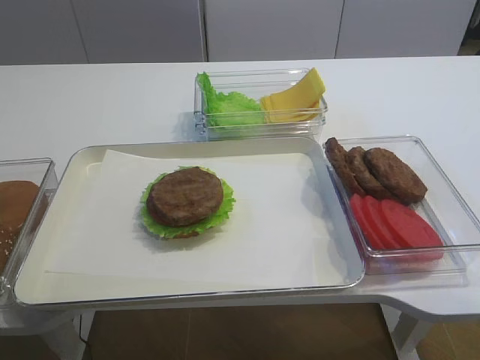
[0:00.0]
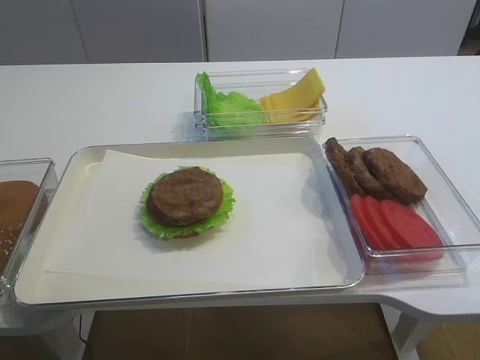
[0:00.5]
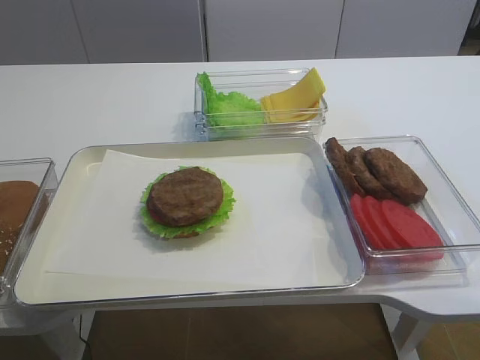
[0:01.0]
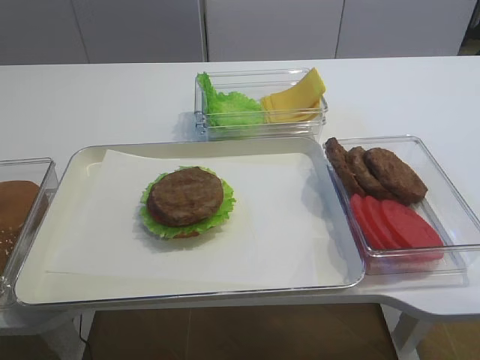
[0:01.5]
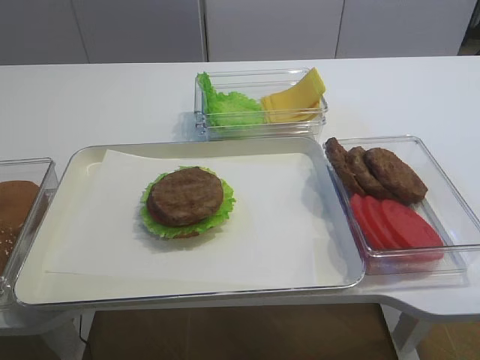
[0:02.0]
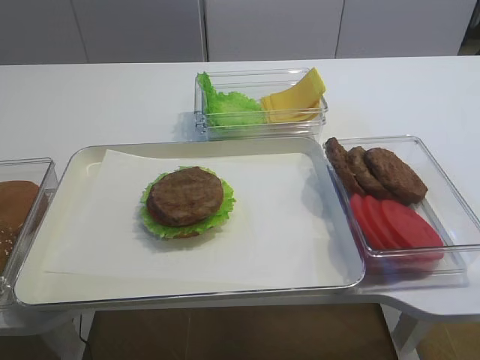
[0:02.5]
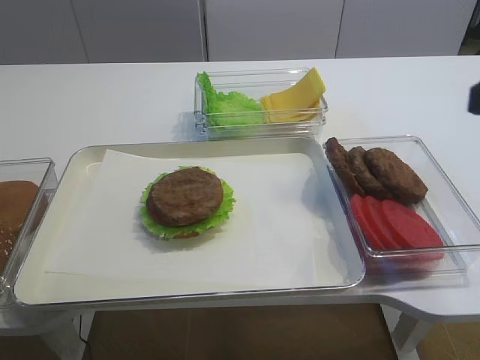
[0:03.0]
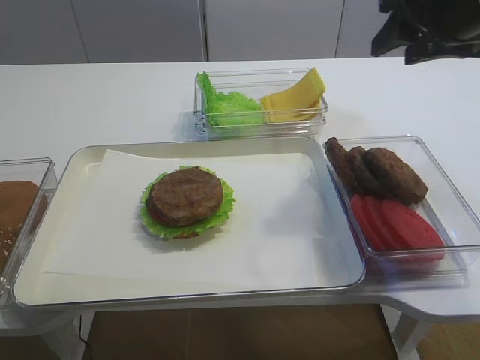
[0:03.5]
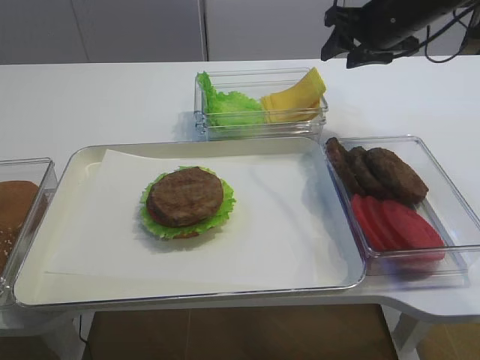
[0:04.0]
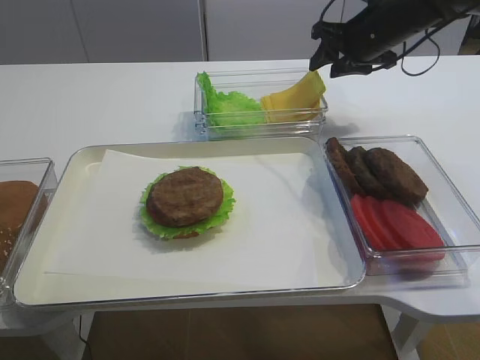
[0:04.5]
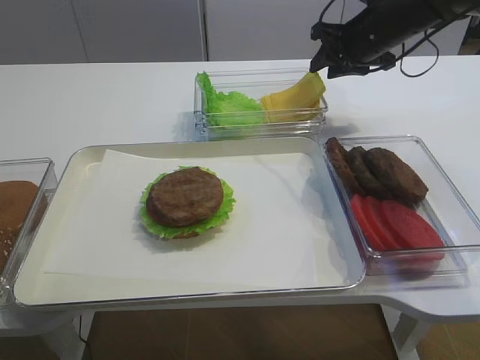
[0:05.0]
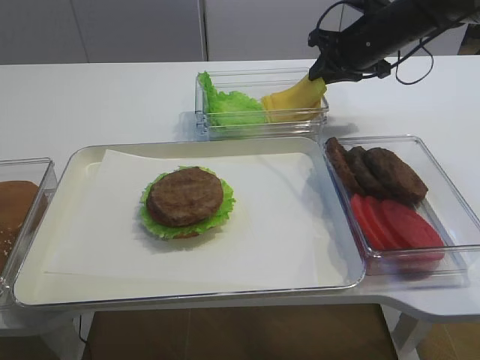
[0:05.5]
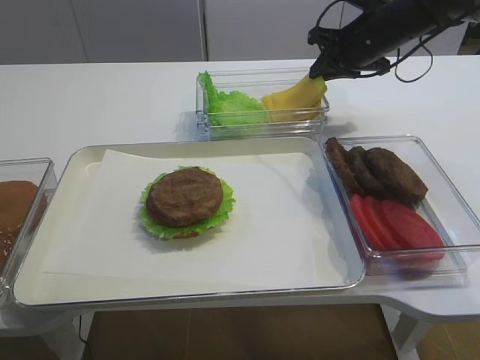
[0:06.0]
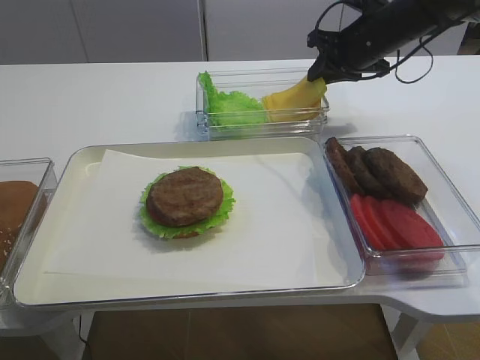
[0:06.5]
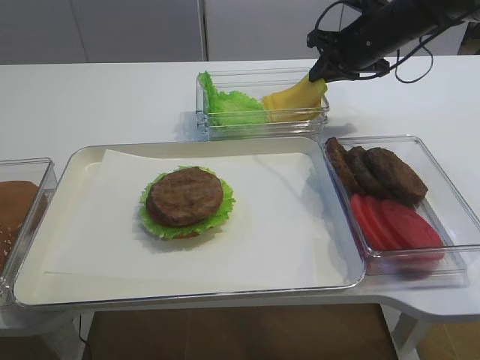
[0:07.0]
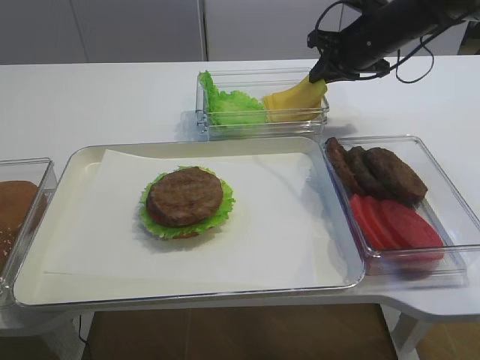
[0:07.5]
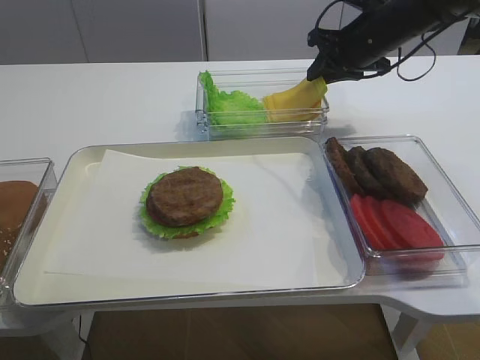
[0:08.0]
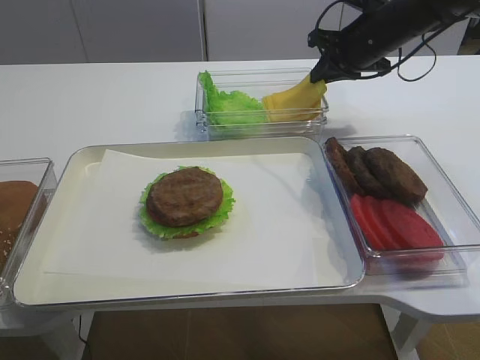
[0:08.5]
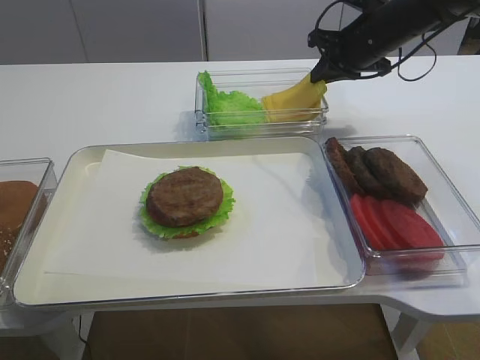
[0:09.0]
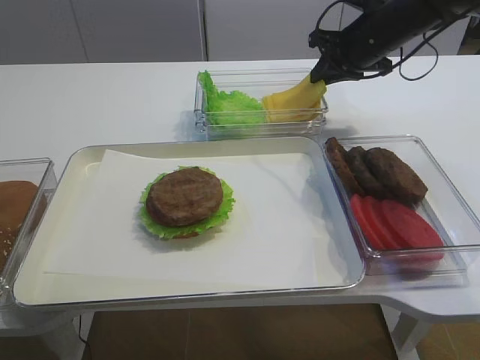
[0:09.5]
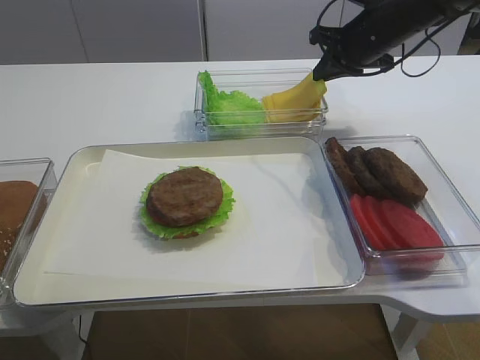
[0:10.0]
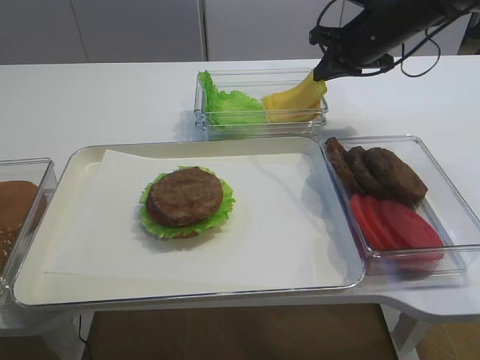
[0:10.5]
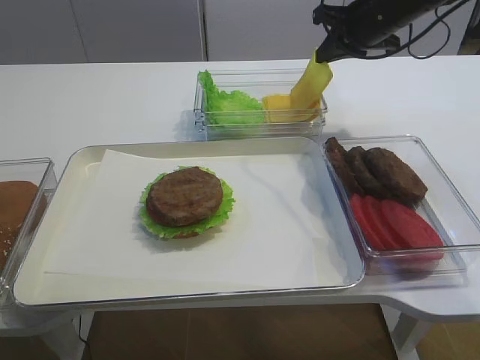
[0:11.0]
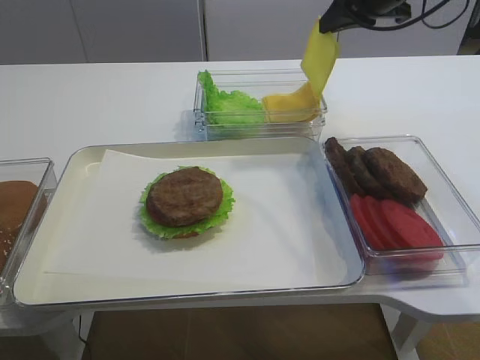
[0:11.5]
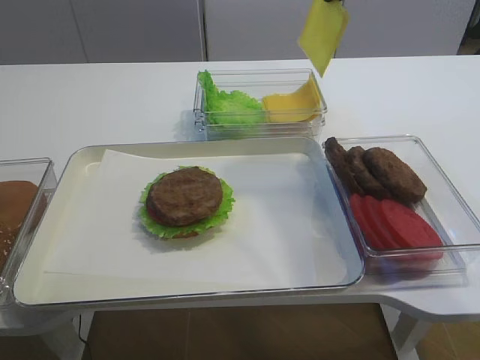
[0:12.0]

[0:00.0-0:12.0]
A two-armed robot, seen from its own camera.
0:02.0 to 0:04.0: The right gripper is displaced forward by roughly 50 cm.
0:04.0 to 0:06.0: The right gripper moves roughly 5 cm, and closes its fingers.
0:06.0 to 0:10.0: Both grippers stay about where they are.
0:10.0 to 0:12.0: The right gripper heads upward and backward, covering approximately 15 cm.

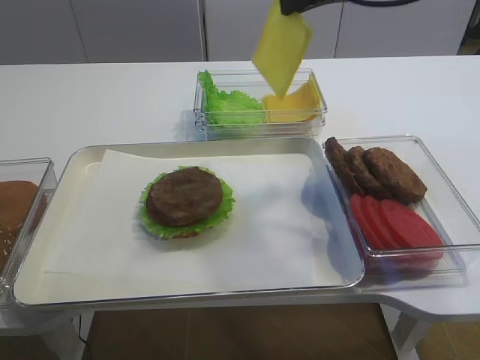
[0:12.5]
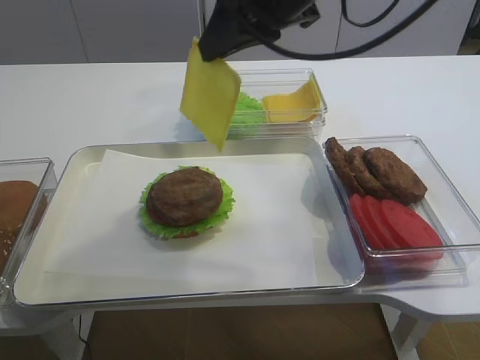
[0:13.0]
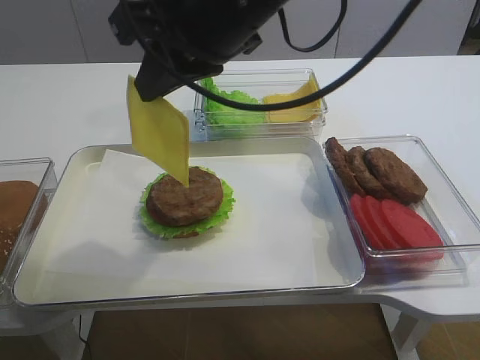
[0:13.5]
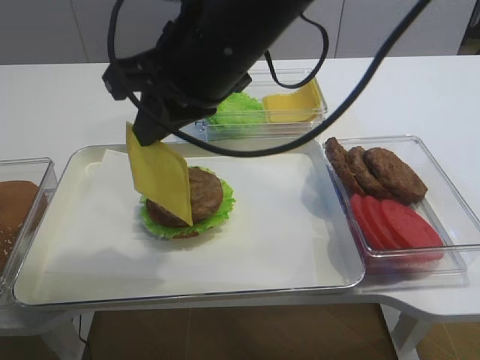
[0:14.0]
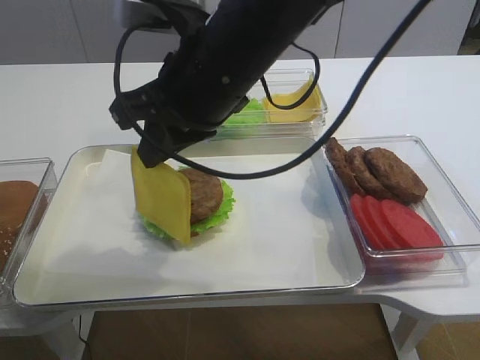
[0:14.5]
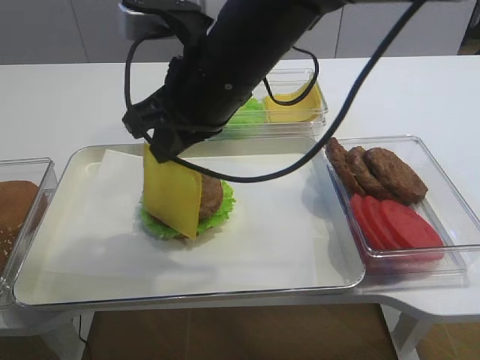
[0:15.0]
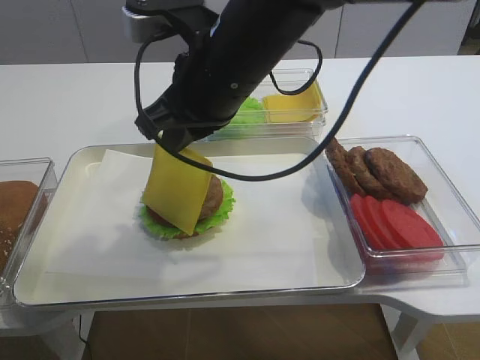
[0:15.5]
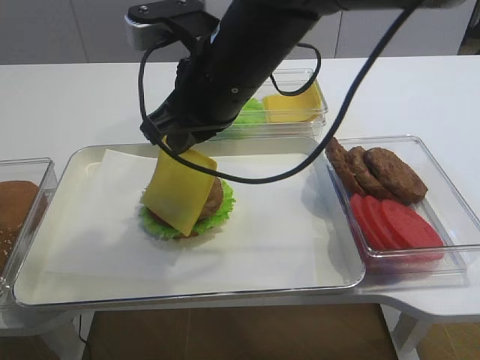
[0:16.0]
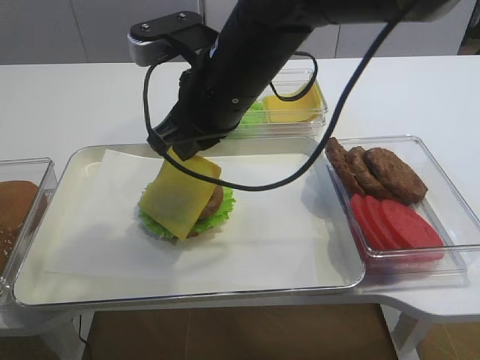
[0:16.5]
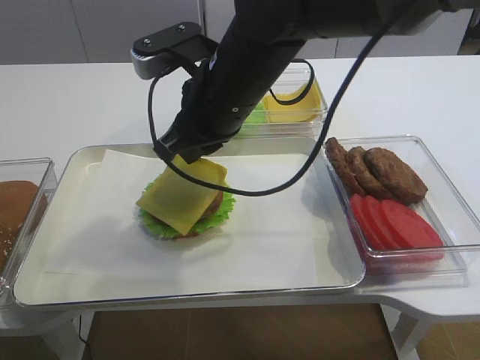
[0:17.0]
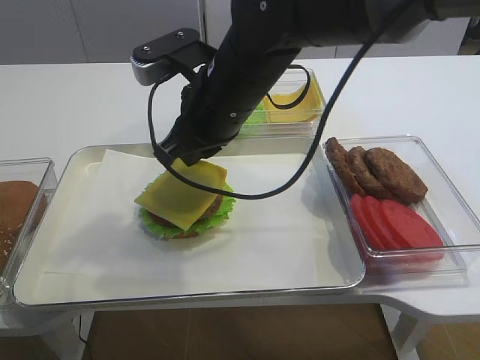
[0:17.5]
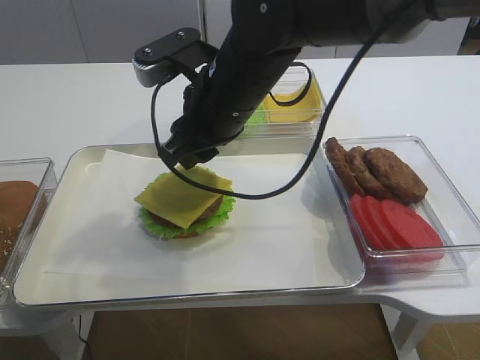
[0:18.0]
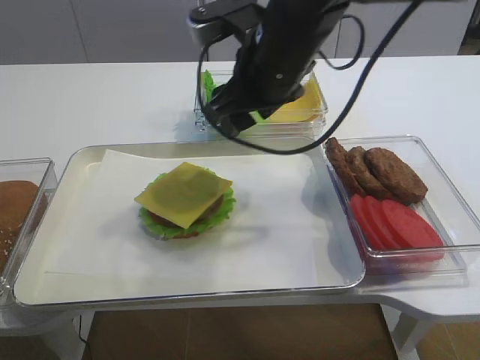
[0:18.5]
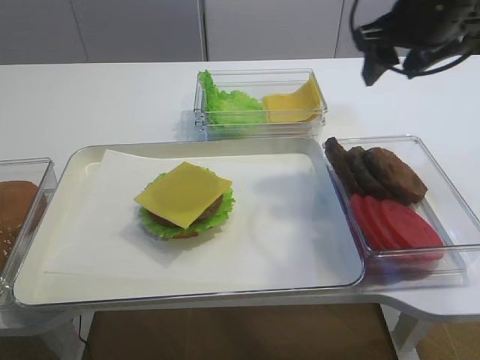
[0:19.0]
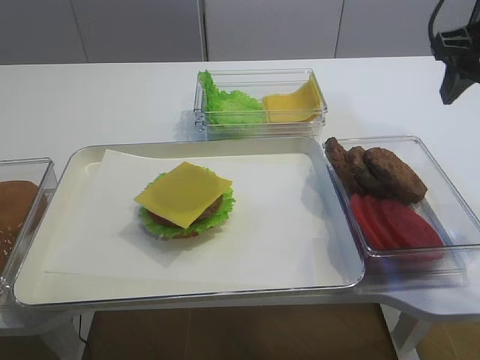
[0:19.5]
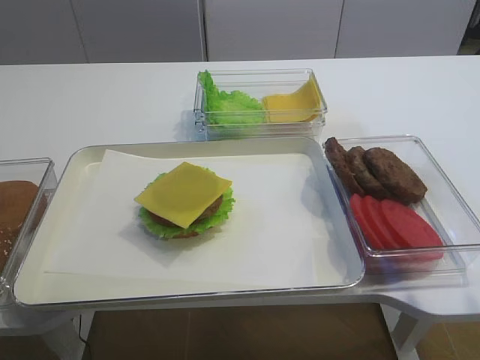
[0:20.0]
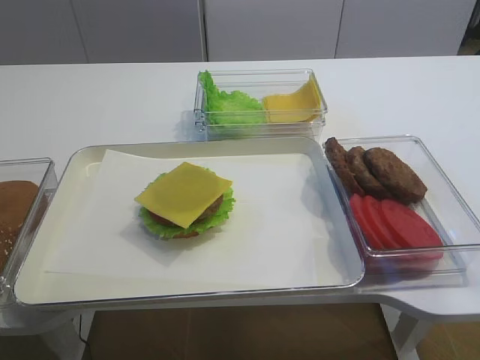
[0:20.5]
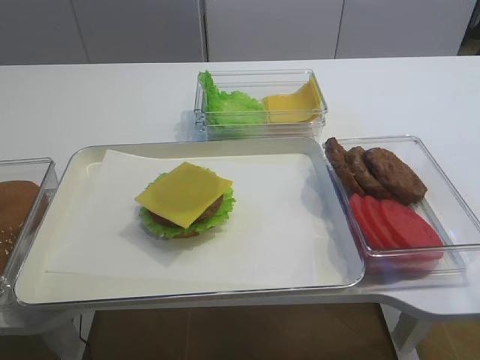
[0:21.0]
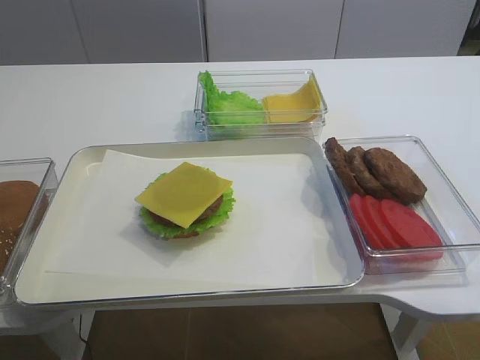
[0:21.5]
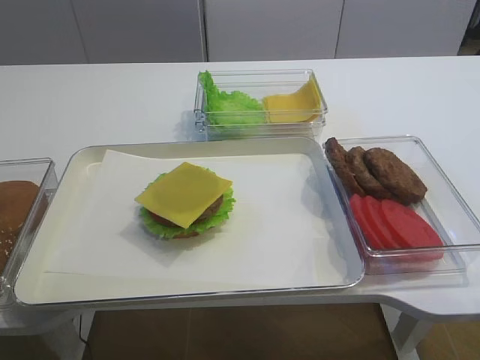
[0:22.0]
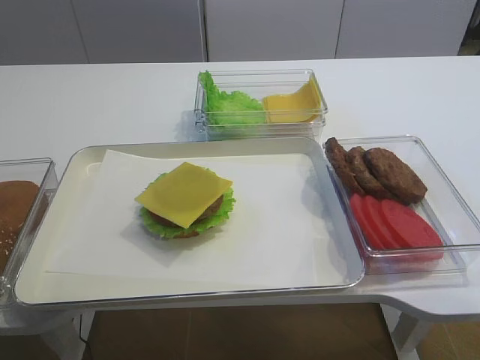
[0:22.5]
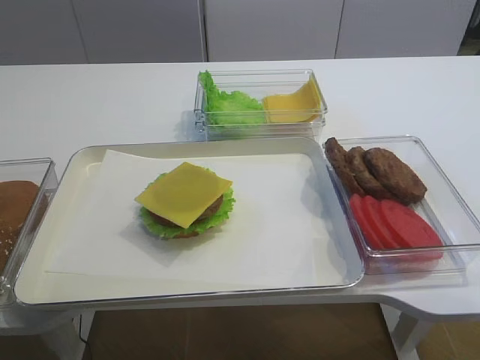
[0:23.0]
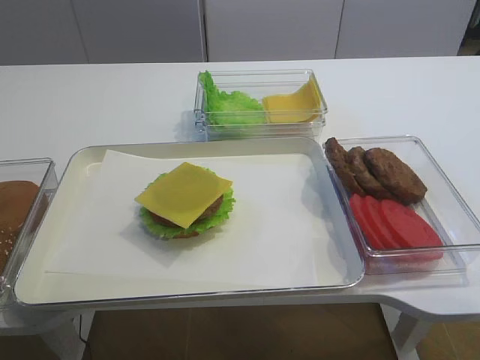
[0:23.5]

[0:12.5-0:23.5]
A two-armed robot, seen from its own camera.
Step, 0:12.5 to 0:17.5: Place the cheese slice on the cutlet with the right gripper.
0:12.5 to 0:14.5: The right gripper travels to the left, backward and downward by about 20 cm.
0:14.5 to 0:16.0: The grippers make only small movements.
0:16.0 to 0:18.0: The right gripper opens.
0:18.0 to 0:20.0: The right gripper is displaced to the right by some 25 cm, and opens its fingers.
0:20.0 to 0:21.5: The right gripper goes approximately 25 cm backward.

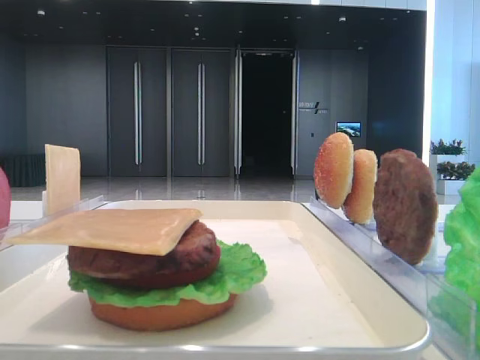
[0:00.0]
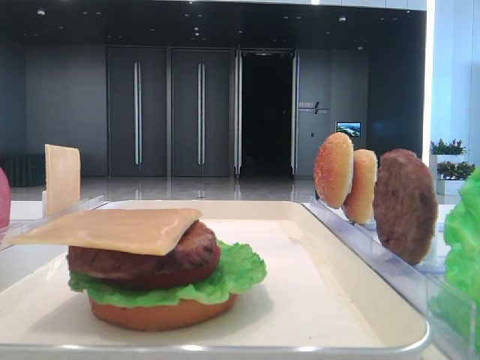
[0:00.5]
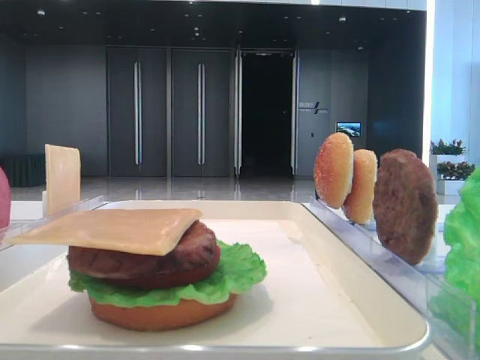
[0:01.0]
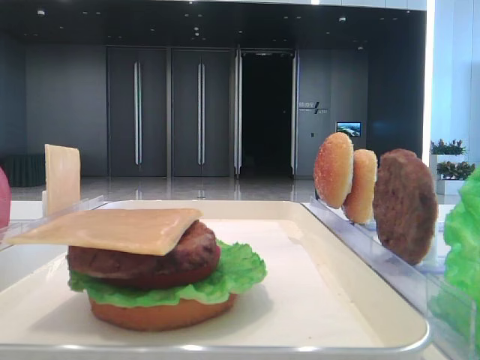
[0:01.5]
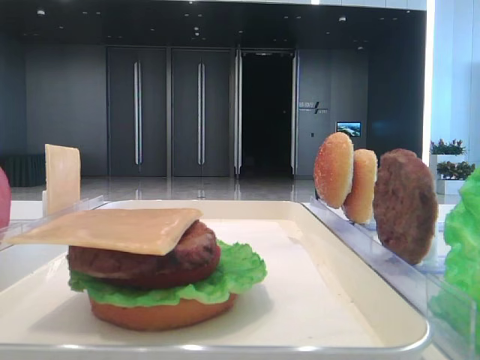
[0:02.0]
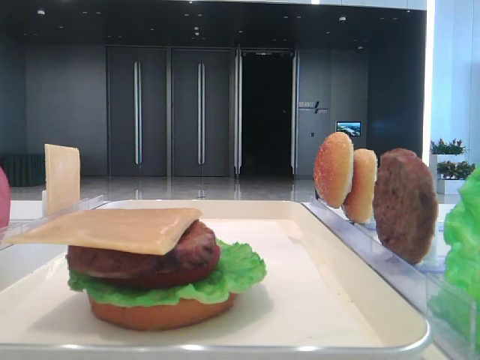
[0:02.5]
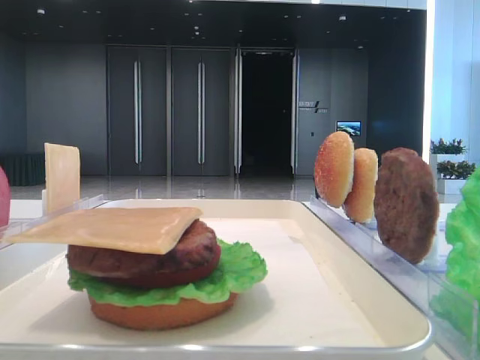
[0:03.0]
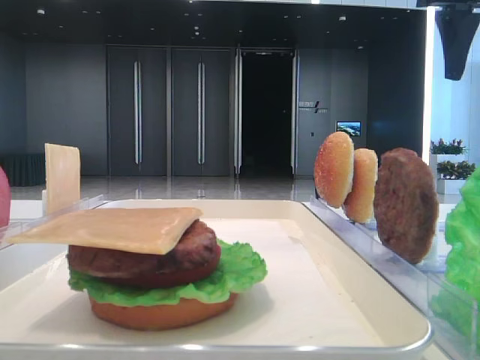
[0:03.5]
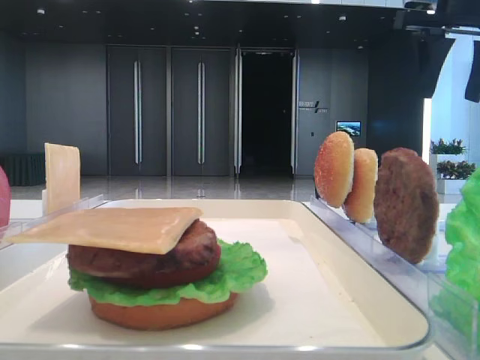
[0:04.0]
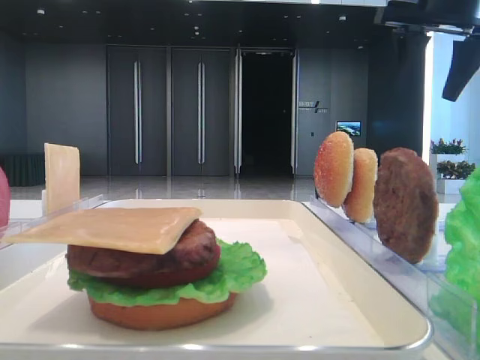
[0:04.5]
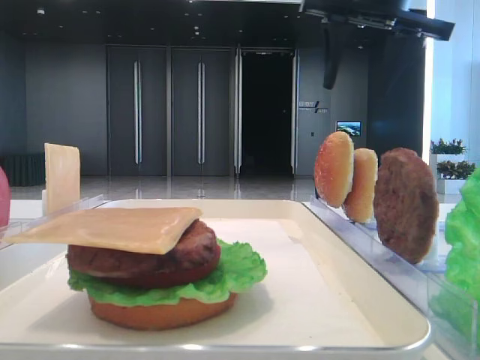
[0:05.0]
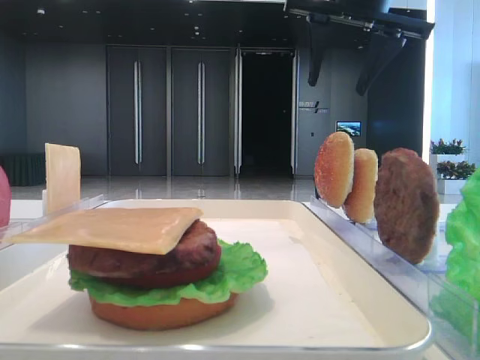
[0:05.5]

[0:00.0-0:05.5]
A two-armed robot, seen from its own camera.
0:02.0 to 0:03.5: The right gripper is displaced forward by some 30 cm.
0:03.5 to 0:05.5: The right gripper travels to the left by some 10 cm.
